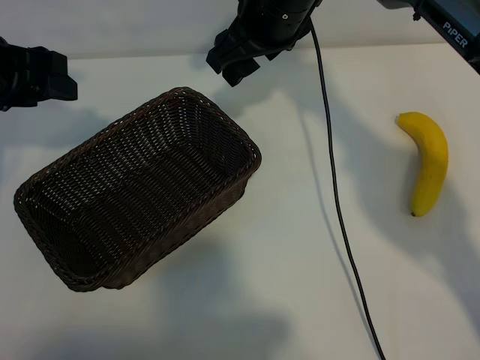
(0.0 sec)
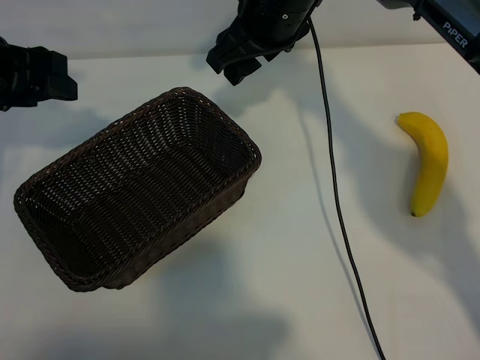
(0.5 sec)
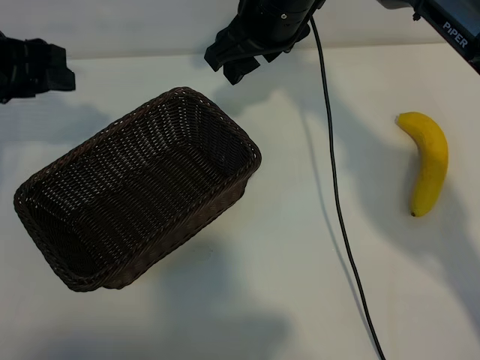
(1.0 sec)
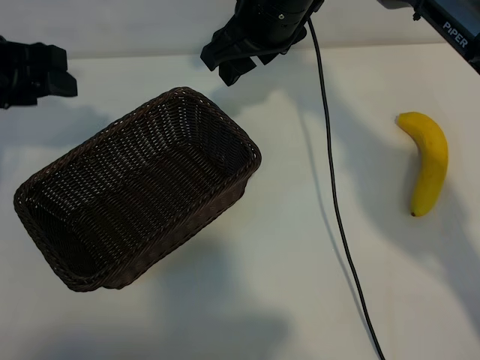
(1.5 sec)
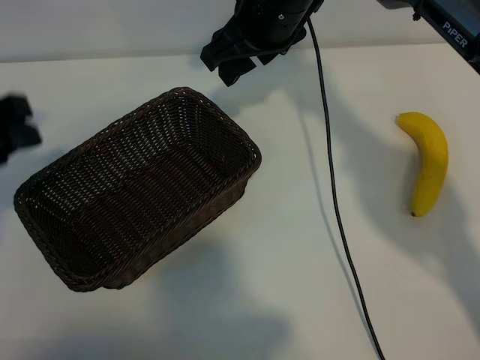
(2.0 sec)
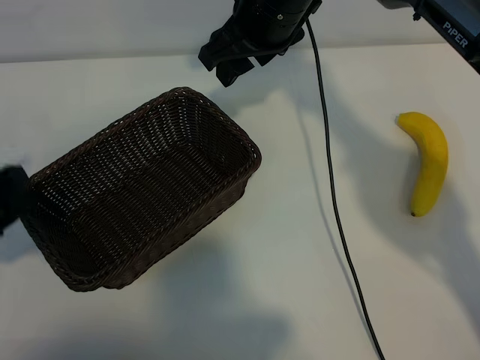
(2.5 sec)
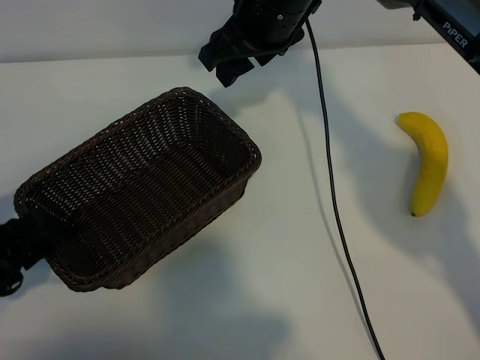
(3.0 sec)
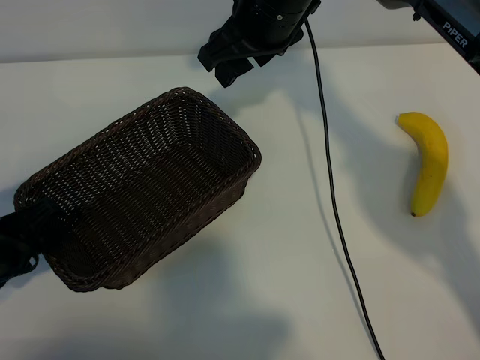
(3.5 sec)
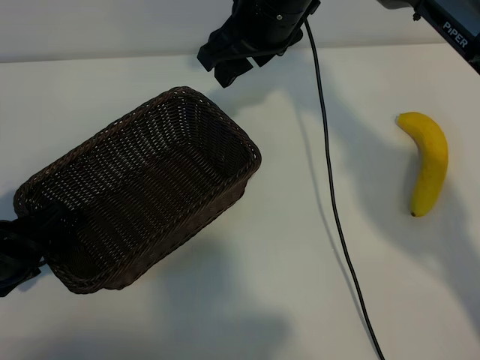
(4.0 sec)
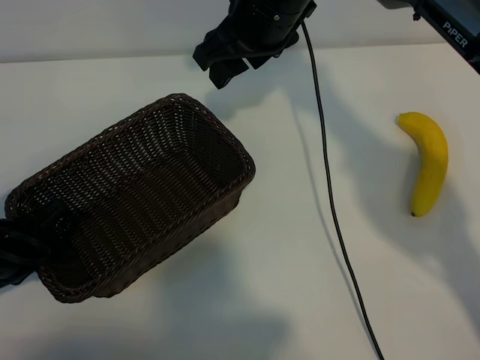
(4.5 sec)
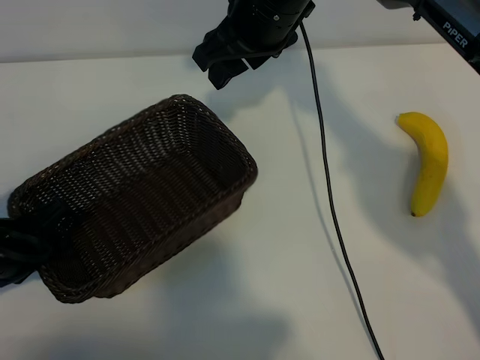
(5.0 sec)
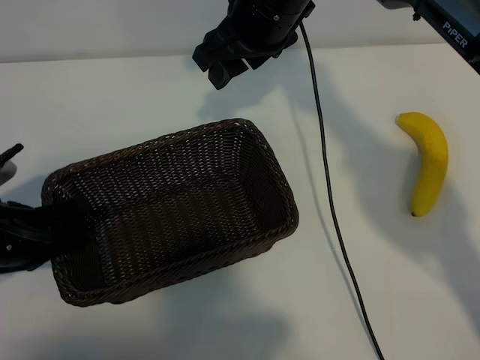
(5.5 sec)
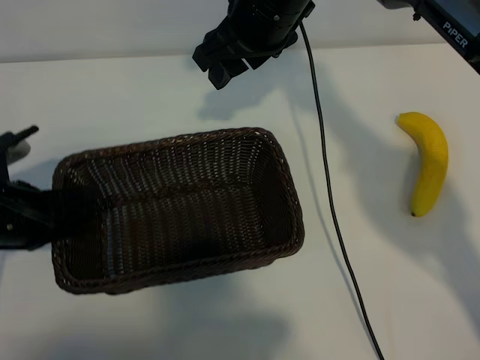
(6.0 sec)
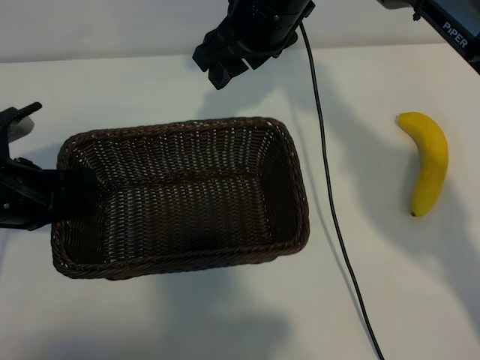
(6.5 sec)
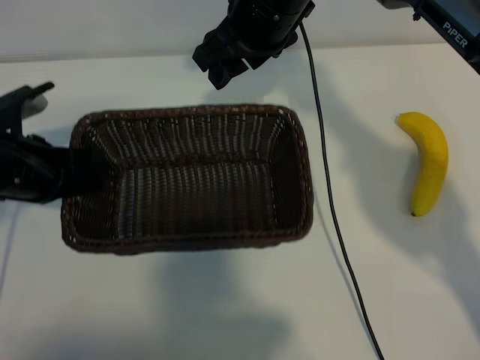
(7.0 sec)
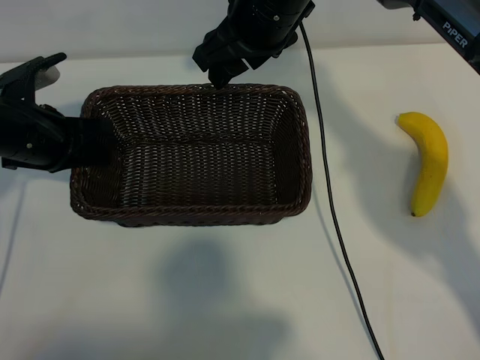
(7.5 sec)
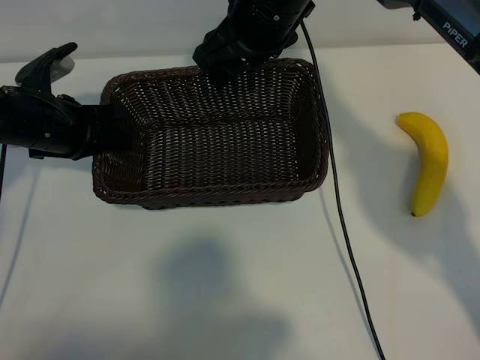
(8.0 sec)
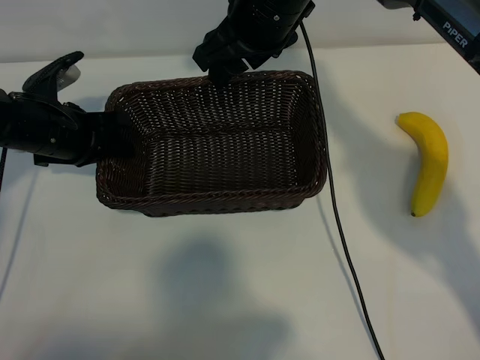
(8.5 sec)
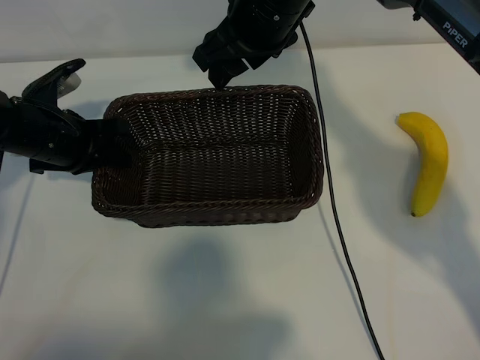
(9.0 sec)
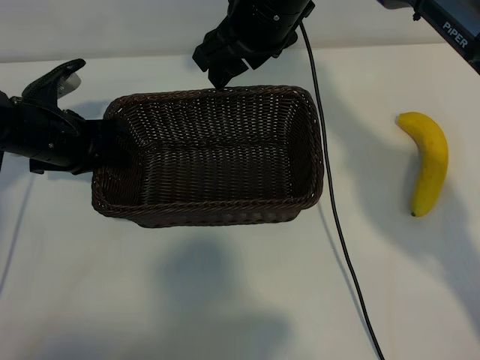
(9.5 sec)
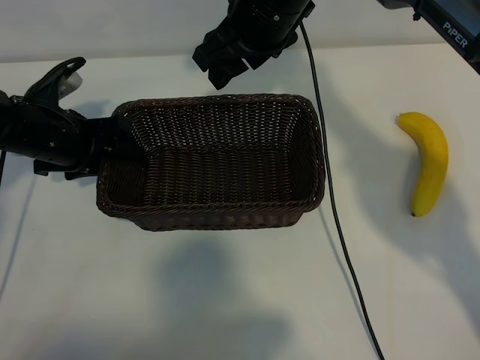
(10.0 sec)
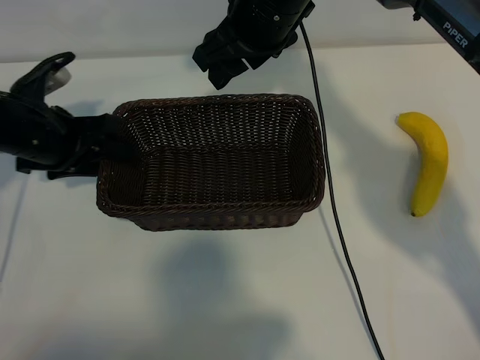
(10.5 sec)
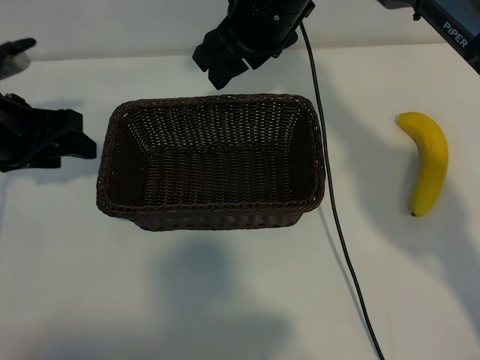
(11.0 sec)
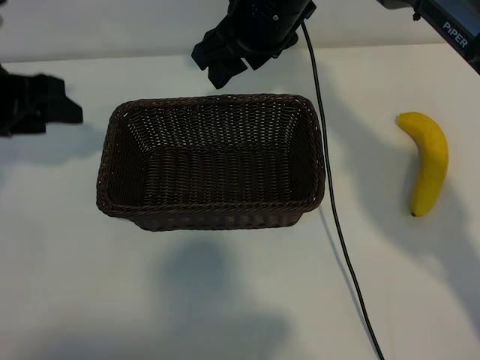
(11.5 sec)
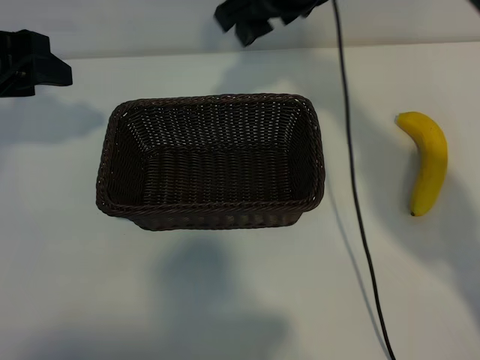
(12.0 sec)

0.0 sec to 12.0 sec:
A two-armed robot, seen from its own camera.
Task of the whole recording: pick up the banana and put it into the basket.
Step, 0.0 sec to 4.0 sec: Grasp the basket with the left gripper.
Step, 4.5 sec to 10.5 sec: Place the basket in the center of the table with the left gripper.

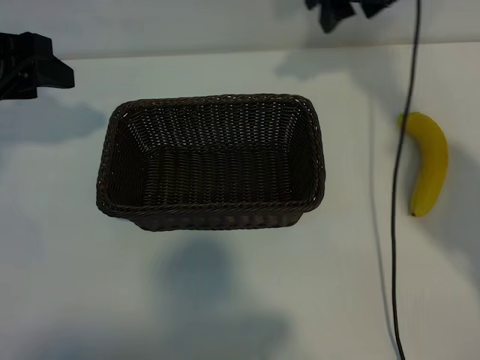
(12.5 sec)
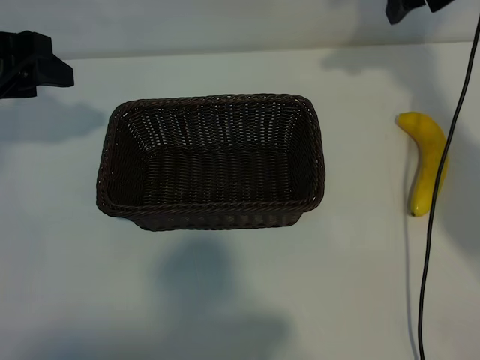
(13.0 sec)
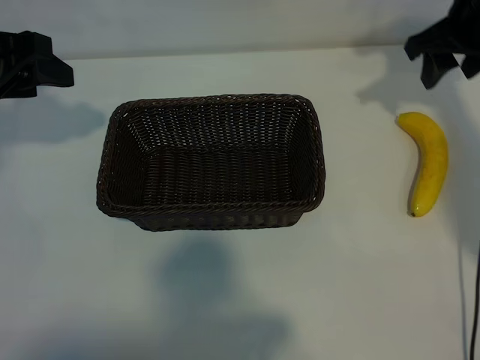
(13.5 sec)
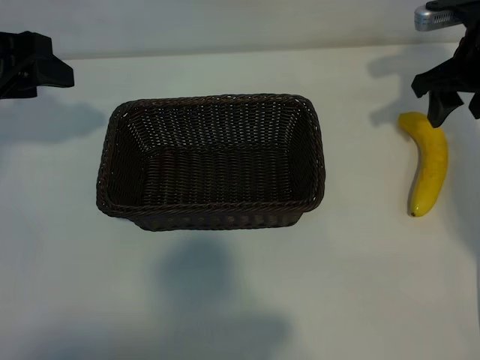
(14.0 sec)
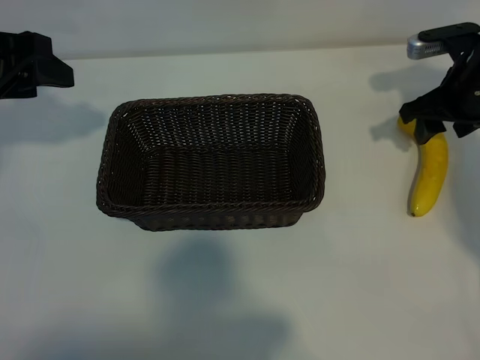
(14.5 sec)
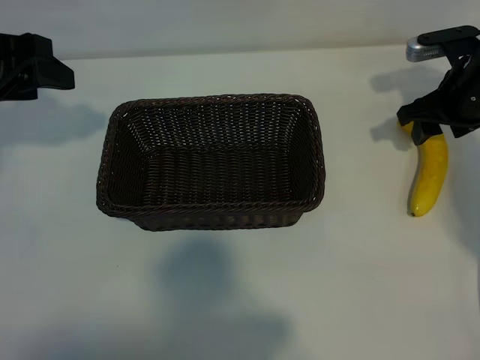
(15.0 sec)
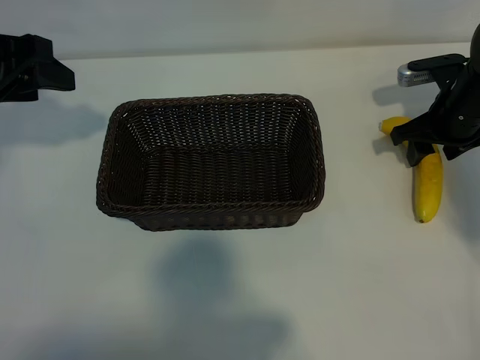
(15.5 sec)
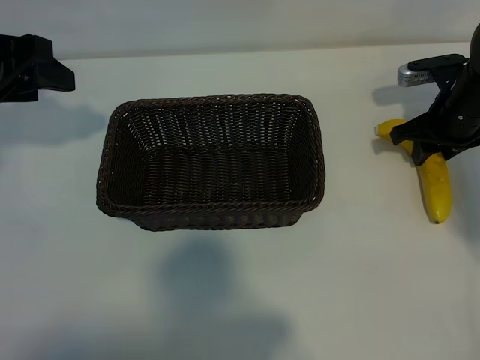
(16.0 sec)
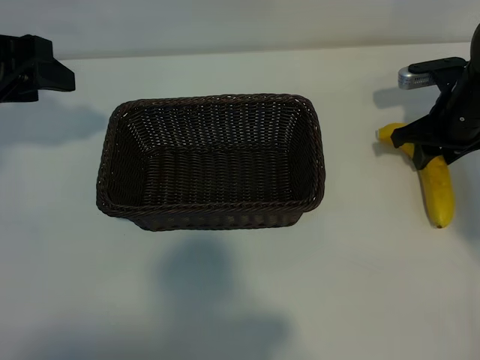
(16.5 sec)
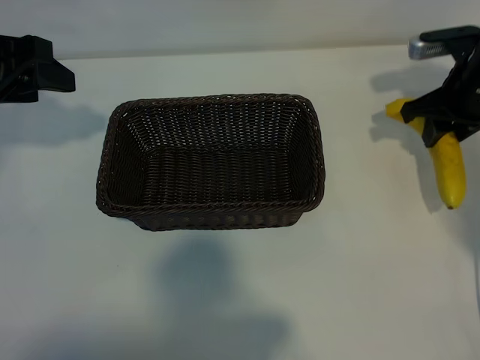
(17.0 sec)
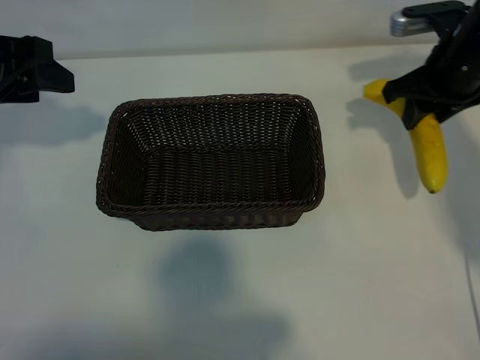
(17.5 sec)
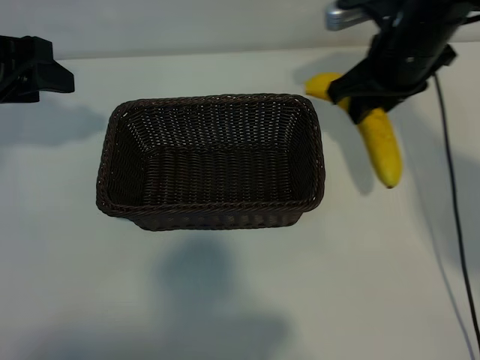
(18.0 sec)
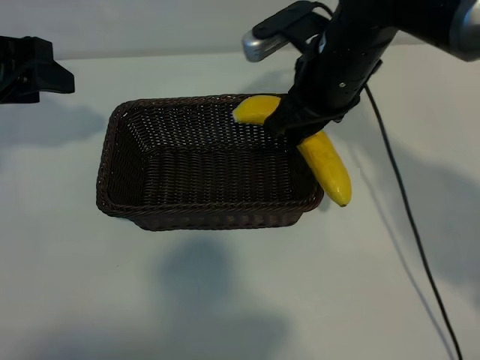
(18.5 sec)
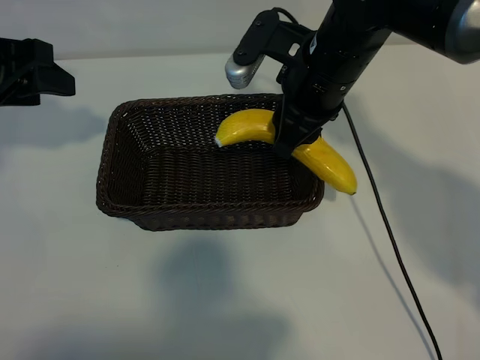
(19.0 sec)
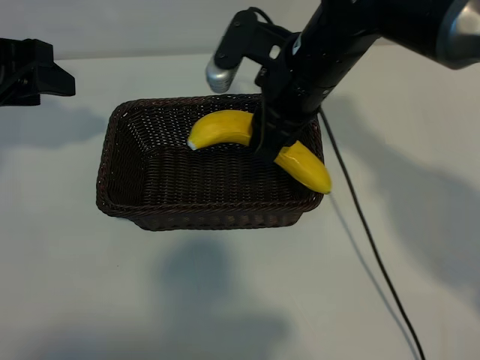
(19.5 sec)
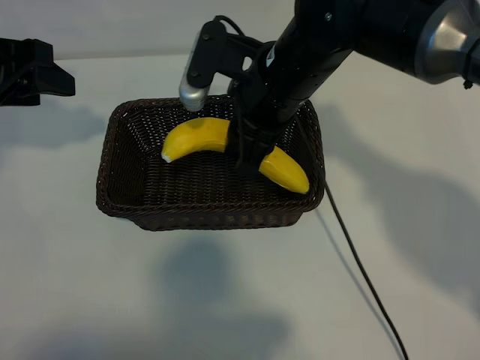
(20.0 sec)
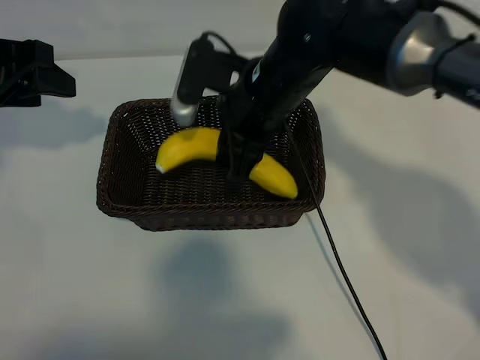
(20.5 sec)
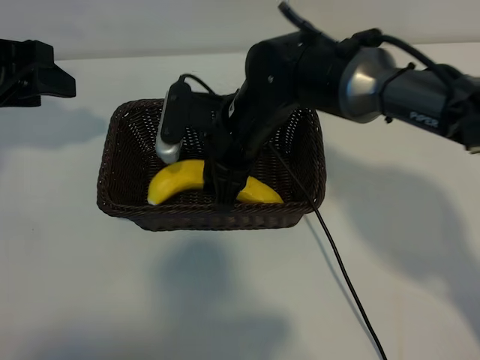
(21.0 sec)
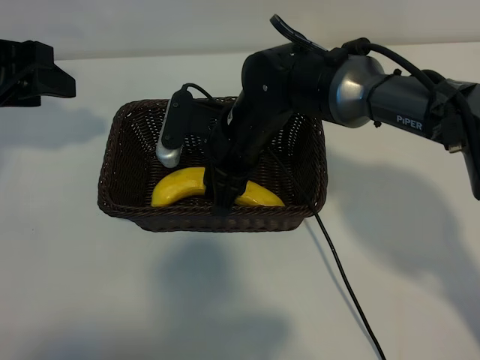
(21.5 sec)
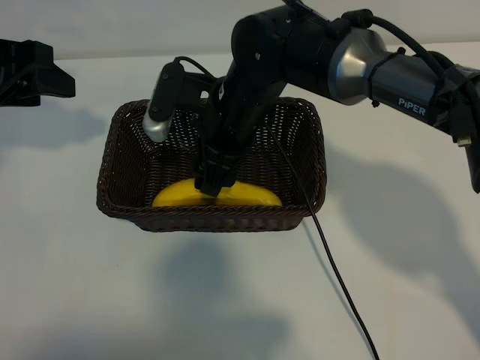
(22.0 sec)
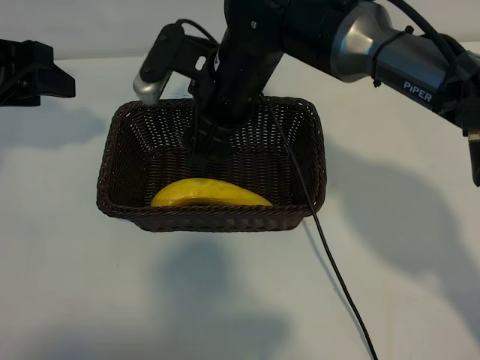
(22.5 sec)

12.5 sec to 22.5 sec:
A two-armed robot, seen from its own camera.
Task of the whole recording: pick up the banana and put it into the basket.
Step, 12.5 sec to 16.0 sec: Grasp the banana with right gripper.
Step, 16.5 sec to 22.0 sec: Place the banana in the basket with right gripper.
